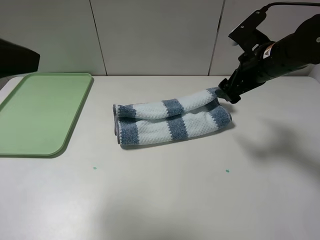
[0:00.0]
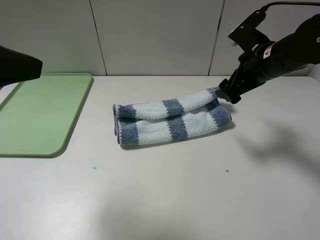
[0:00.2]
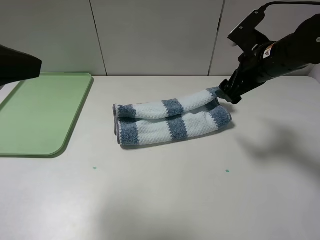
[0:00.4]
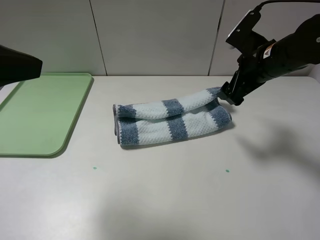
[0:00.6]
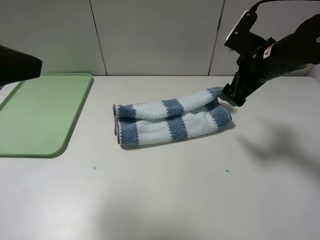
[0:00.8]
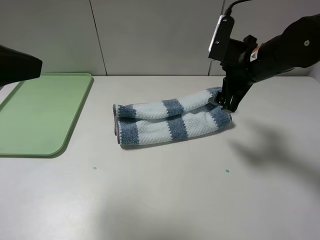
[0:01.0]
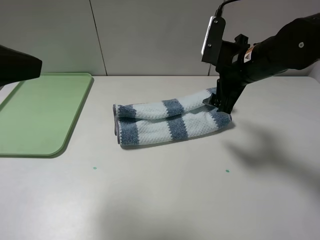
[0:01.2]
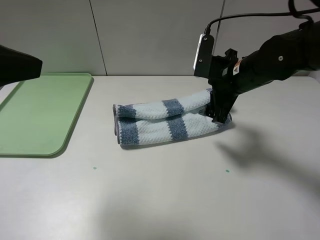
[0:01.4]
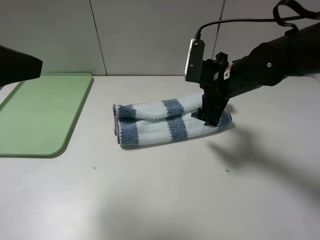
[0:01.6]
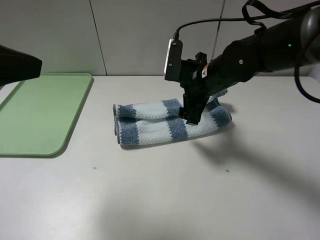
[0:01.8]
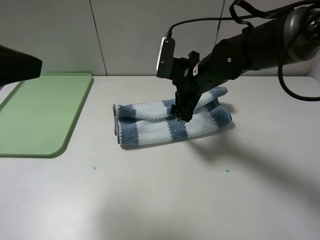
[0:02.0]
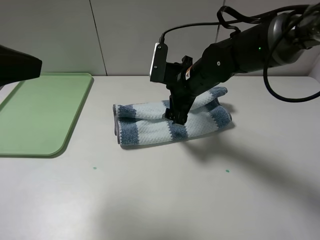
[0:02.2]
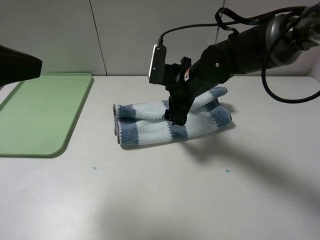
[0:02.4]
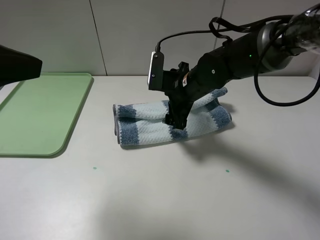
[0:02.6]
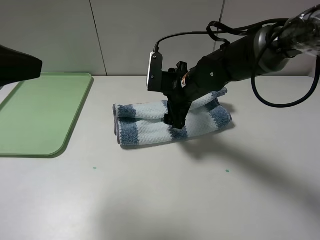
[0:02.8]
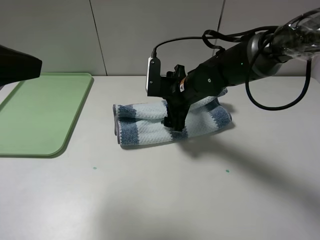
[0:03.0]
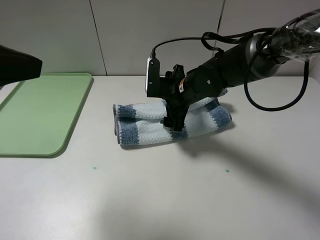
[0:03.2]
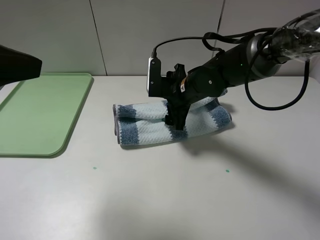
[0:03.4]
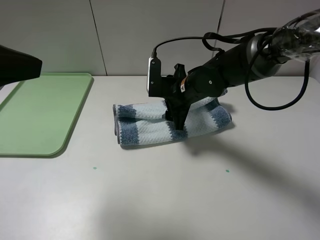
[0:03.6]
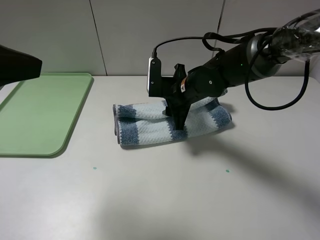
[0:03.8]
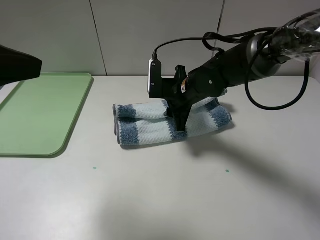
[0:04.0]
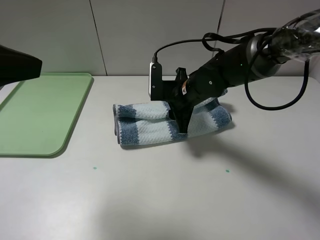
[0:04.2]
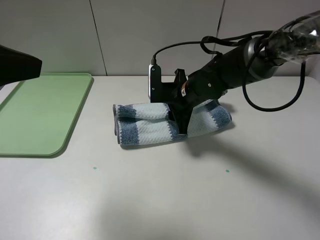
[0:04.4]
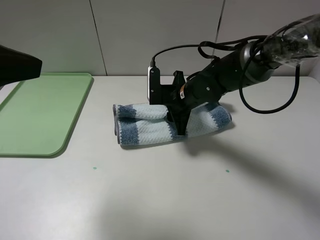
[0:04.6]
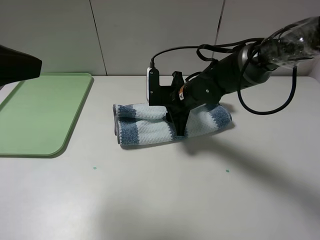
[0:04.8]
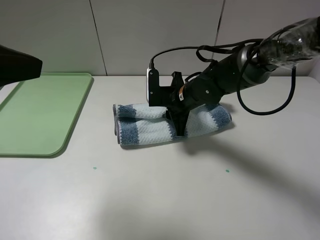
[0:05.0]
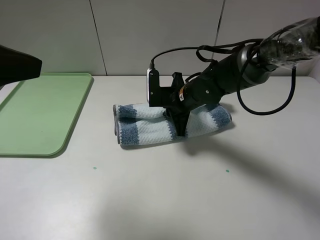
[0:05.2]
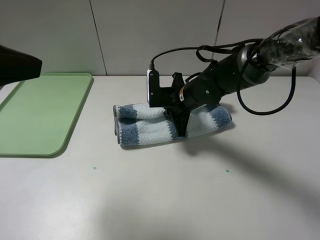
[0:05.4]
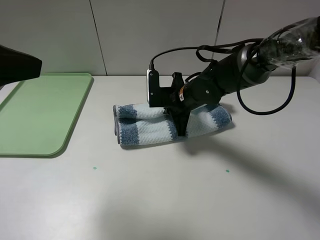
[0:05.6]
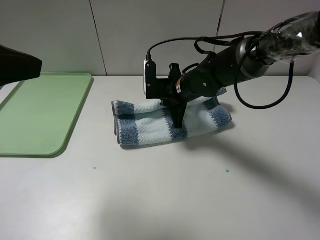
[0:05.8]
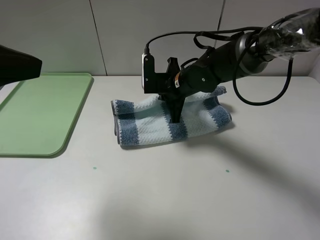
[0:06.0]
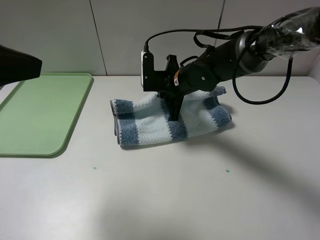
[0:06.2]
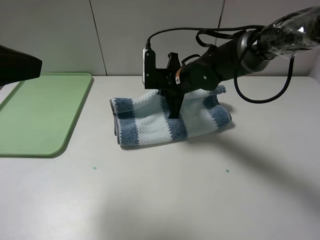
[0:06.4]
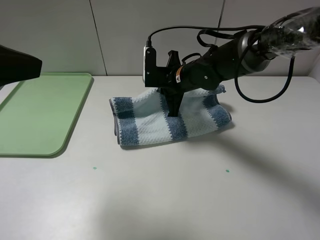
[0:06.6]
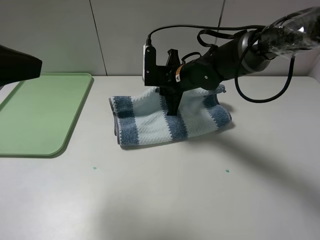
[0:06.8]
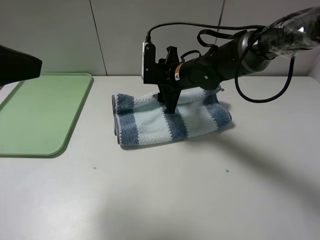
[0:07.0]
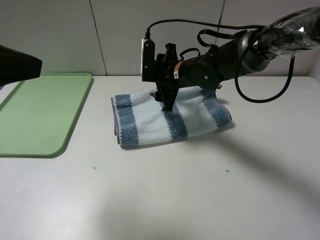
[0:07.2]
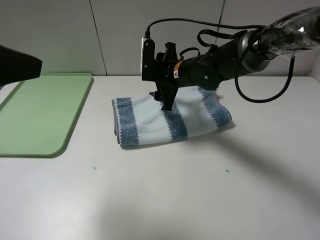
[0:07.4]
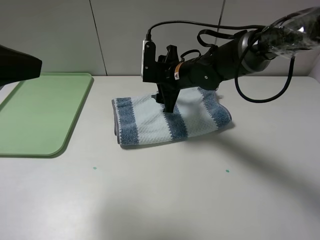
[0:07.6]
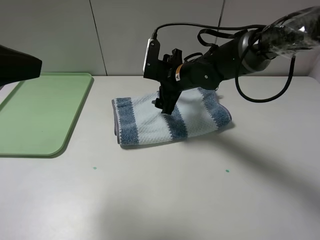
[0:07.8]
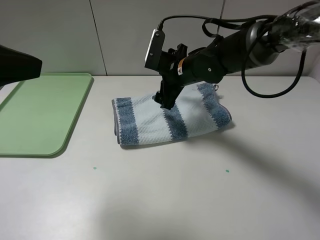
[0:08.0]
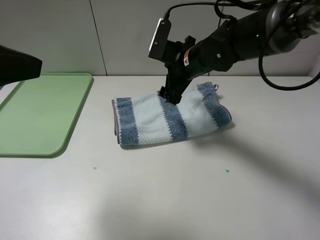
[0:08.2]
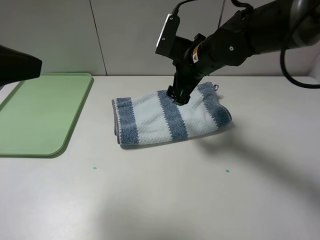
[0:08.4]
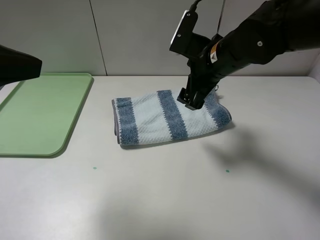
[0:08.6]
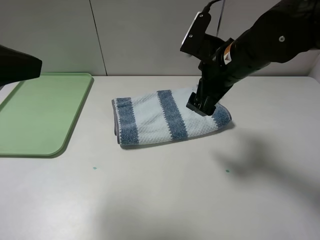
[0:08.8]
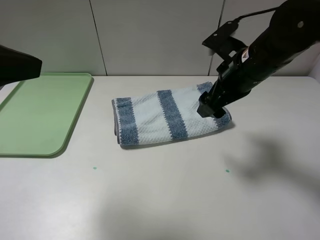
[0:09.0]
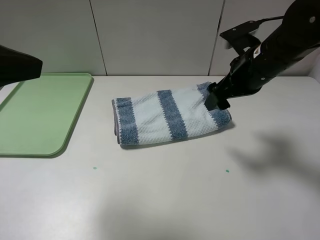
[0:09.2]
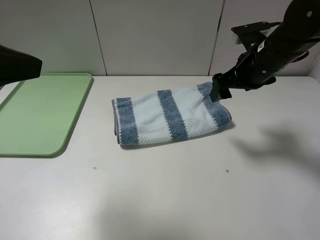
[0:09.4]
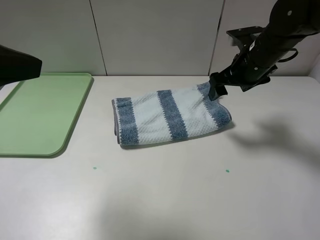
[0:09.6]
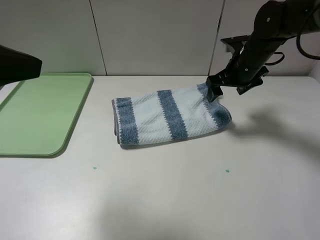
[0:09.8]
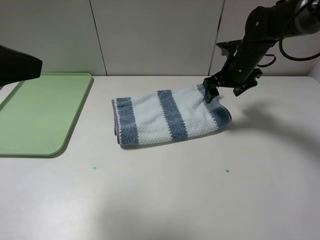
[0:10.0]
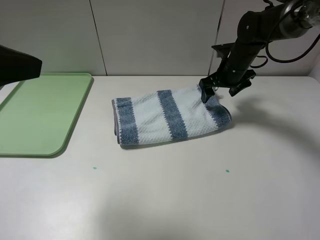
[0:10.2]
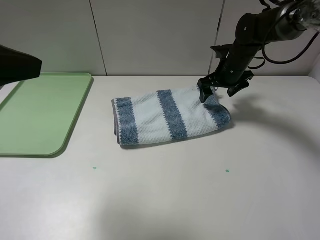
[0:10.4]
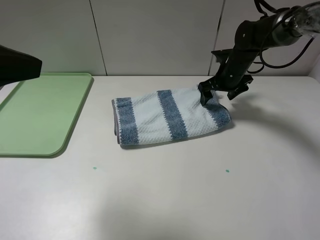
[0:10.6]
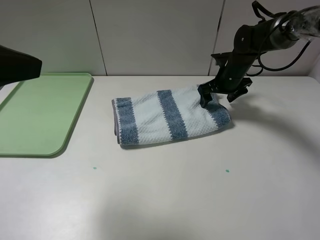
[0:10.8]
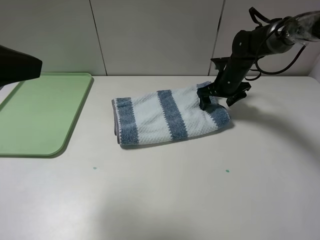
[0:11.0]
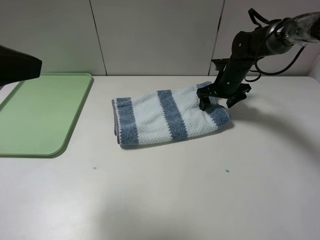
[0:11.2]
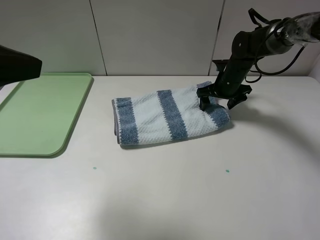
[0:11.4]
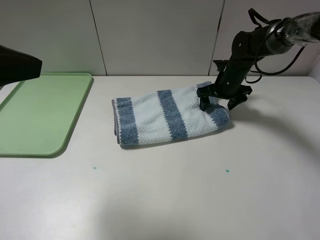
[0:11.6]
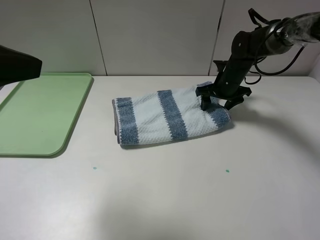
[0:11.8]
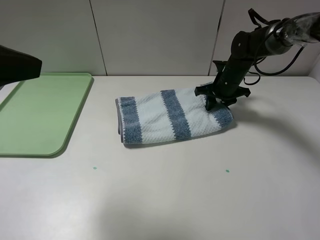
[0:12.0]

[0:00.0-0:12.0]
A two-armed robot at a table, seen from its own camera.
0:00.0 to 0:01.6: The right gripper heads to the left, covering about 5 cm.
0:01.6 to 0:03.0: The right gripper travels to the left by approximately 5 cm.
0:03.0 to 0:04.4: The right gripper closes its fingers.
0:04.4 to 0:06.0: The right gripper closes up.
0:06.0 to 0:07.6: The right gripper opens its fingers.
0:07.6 to 0:09.0: The right gripper shifts about 15 cm to the right, backward and upward.
0:09.0 to 0:10.4: The right gripper travels forward and downward by approximately 20 cm.
0:10.4 to 0:12.0: The right gripper closes.

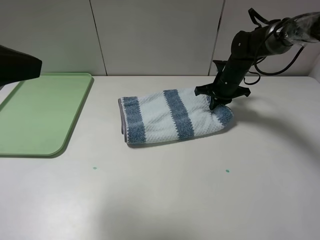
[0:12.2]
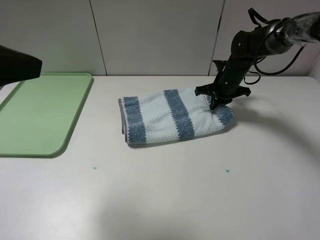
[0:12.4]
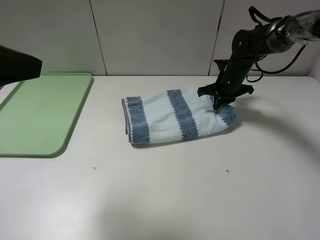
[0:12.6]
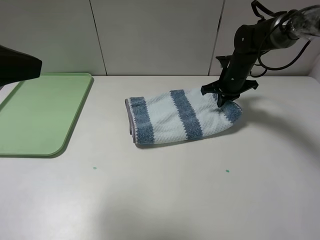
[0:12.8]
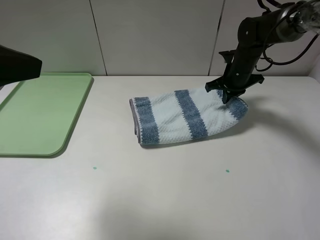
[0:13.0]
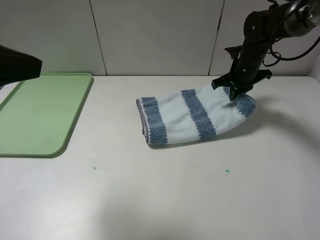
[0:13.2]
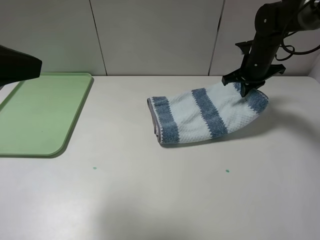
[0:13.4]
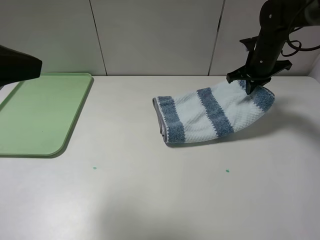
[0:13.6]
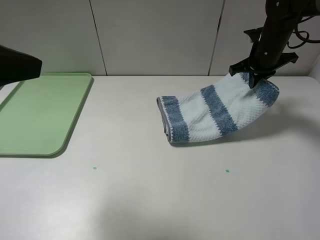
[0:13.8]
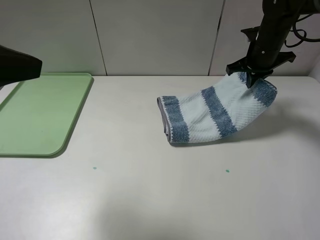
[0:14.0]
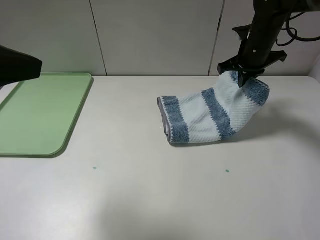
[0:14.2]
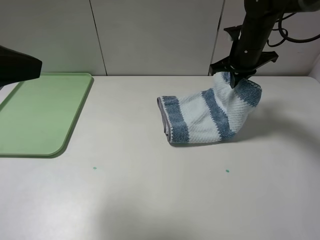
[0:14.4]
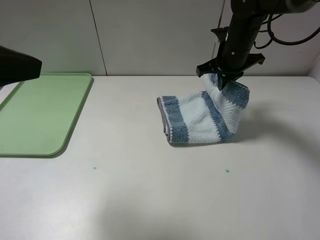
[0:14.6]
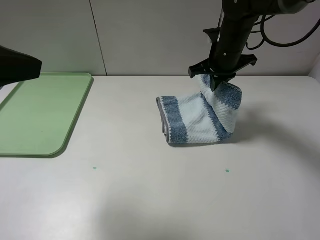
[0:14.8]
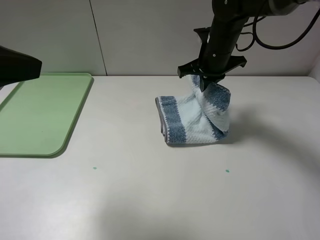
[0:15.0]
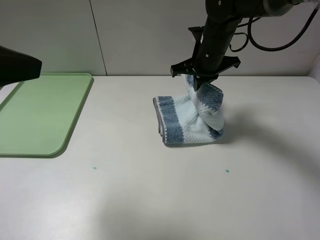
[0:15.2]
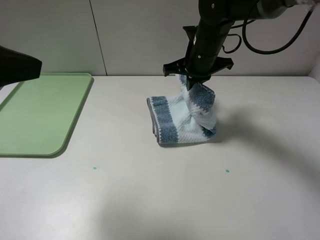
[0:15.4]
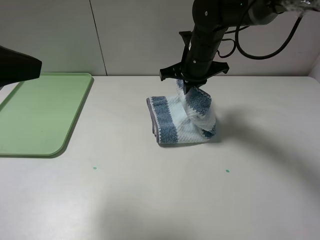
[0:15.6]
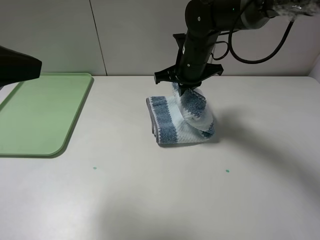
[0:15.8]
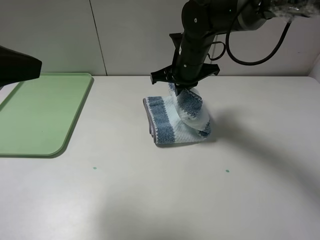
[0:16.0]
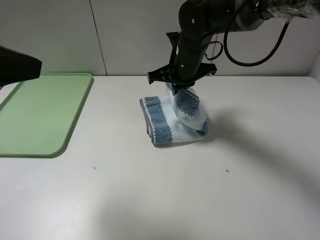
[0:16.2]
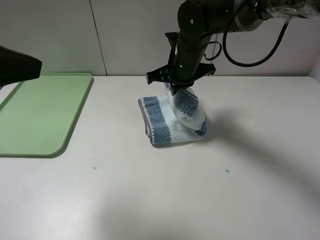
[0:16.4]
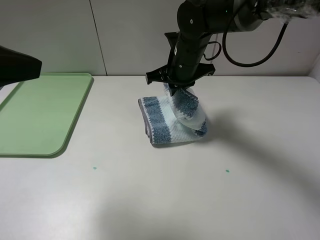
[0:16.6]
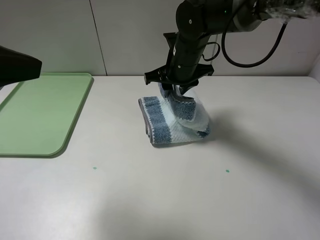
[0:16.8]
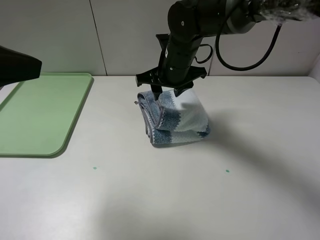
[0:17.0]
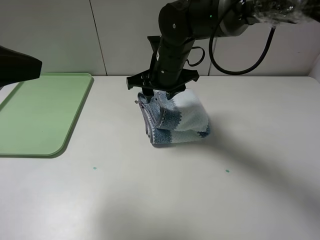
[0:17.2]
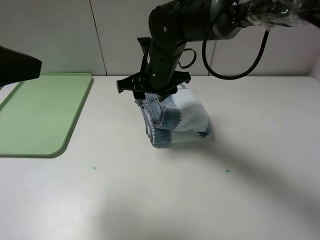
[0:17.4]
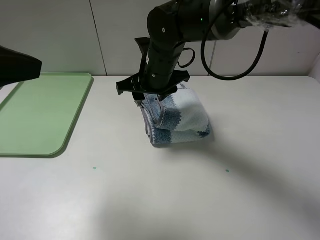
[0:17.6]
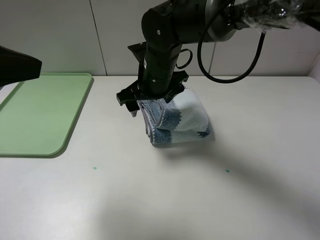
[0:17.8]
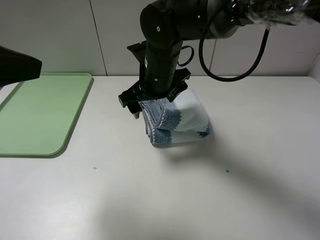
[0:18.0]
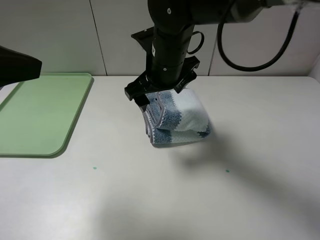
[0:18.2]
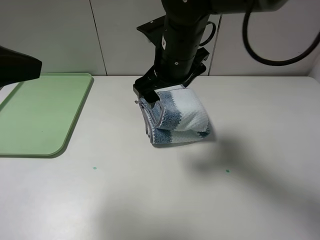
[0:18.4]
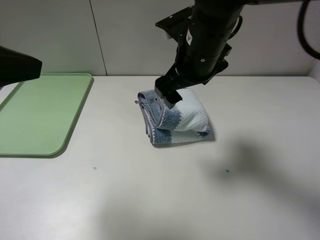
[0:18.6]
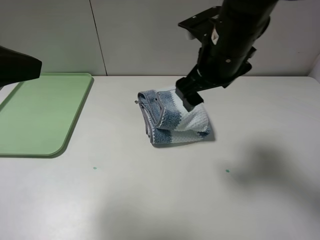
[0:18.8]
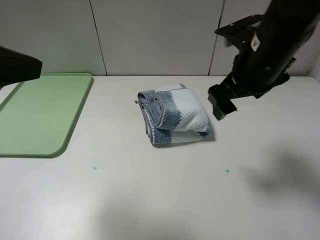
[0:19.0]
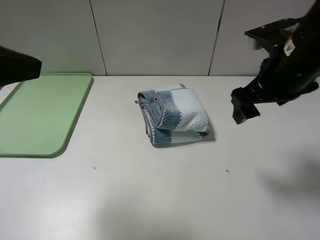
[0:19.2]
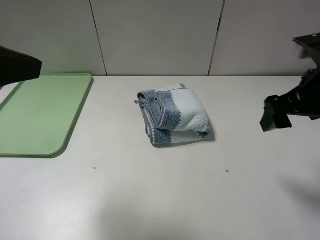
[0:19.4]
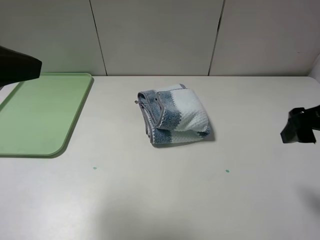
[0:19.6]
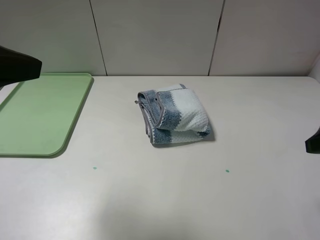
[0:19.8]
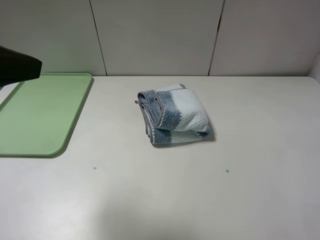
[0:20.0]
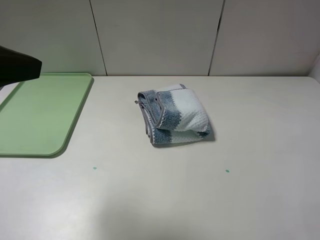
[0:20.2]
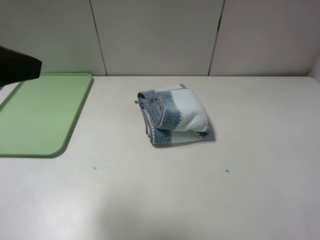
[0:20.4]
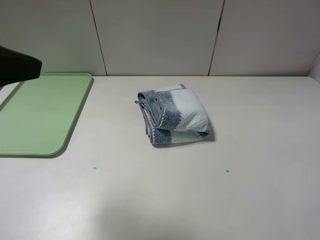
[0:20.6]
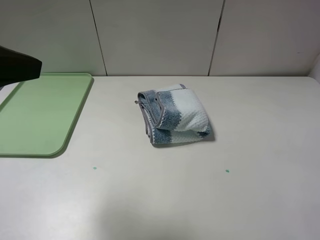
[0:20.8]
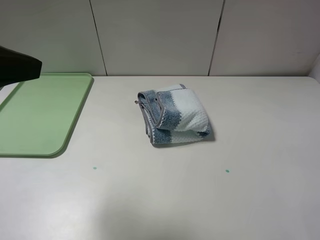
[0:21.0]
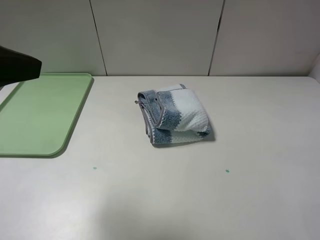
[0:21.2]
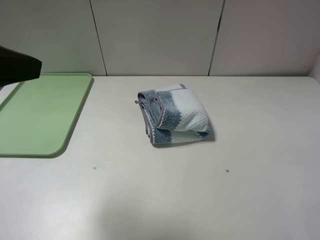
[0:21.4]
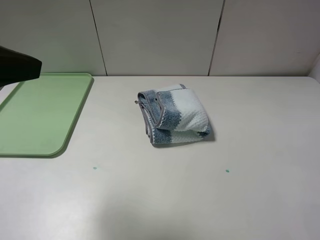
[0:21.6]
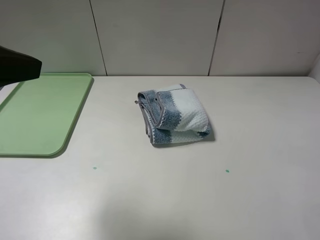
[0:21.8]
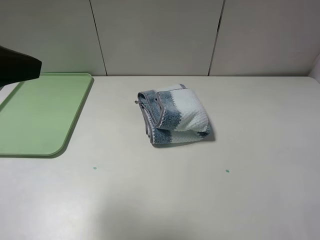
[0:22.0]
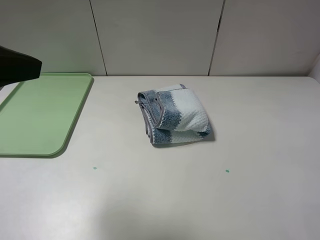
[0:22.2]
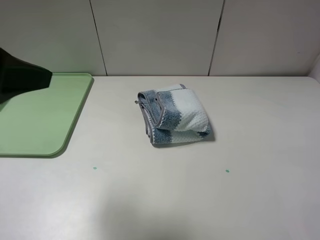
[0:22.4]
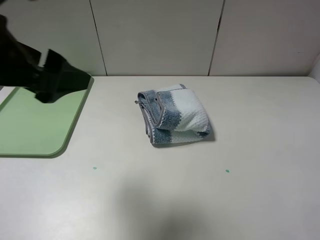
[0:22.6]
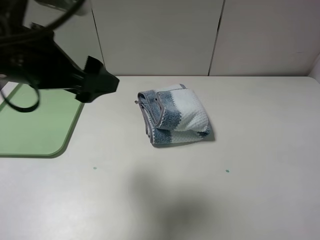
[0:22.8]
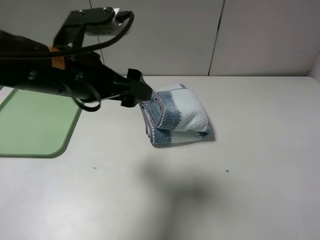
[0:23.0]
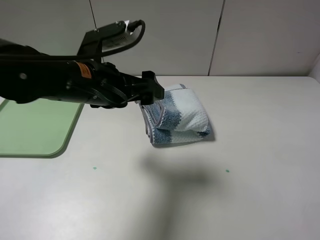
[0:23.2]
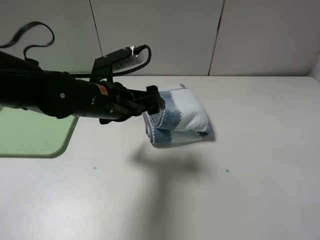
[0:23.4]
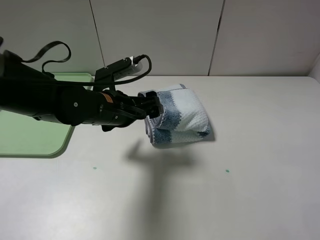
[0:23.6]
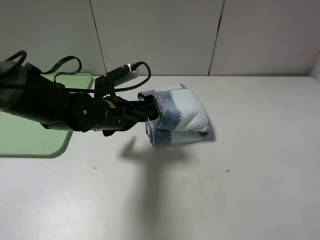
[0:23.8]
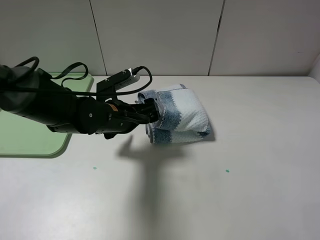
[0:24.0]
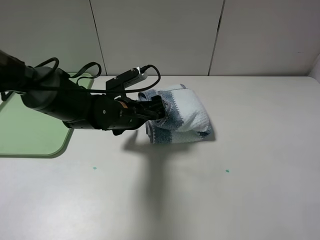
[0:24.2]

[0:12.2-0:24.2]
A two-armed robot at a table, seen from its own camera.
Step, 0:12.6 to 0:18.2: Fold the blue white towel from right to left with right gripper.
0:12.2 to 0:13.8: The right gripper is displaced upward and to the right by some 10 cm.
0:13.8 to 0:15.2: The right gripper shifts roughly 15 cm to the left.
0:15.2 to 0:16.6: The right gripper shifts by some 5 cm.
0:16.6 to 0:18.2: The right gripper moves backward, approximately 5 cm, and opens its fingers.
0:18.2 to 0:19.8: The right gripper goes some 35 cm to the right and backward.
0:21.2 to 0:22.6: The left gripper ends up about 10 cm from where it was.
0:22.6 to 0:24.2: The left gripper travels downward, forward and to the right by about 25 cm.
